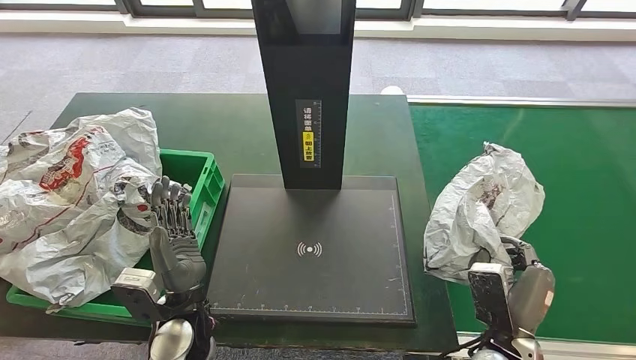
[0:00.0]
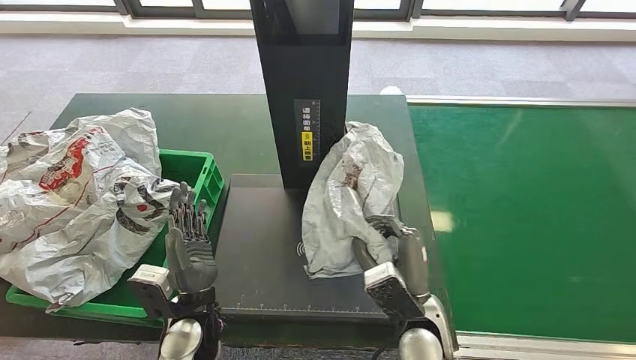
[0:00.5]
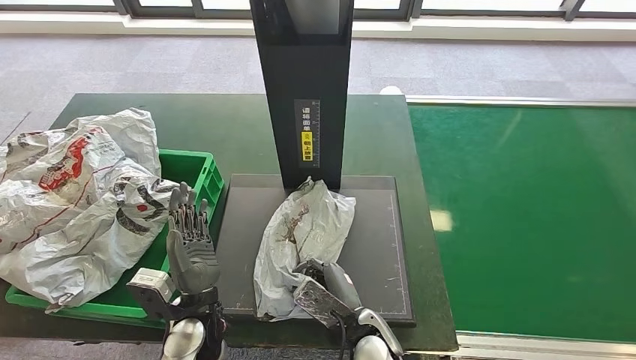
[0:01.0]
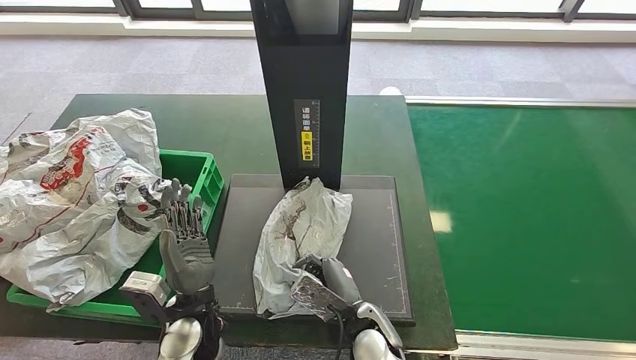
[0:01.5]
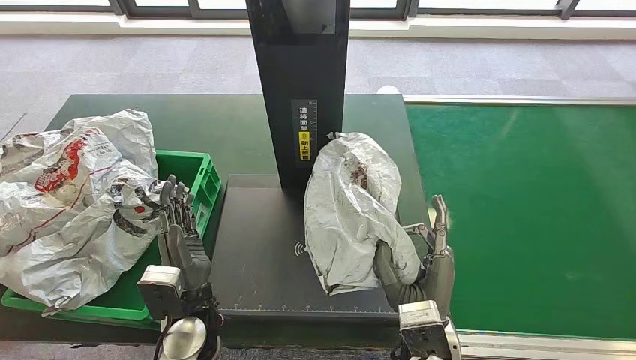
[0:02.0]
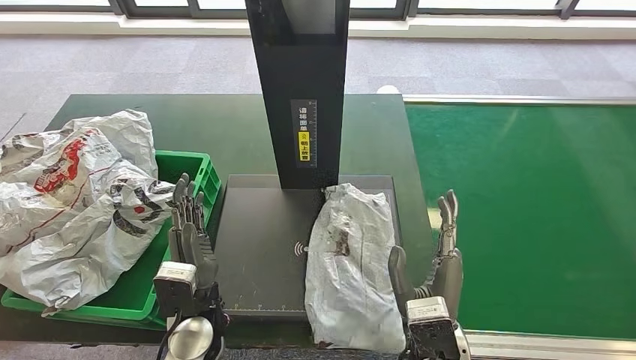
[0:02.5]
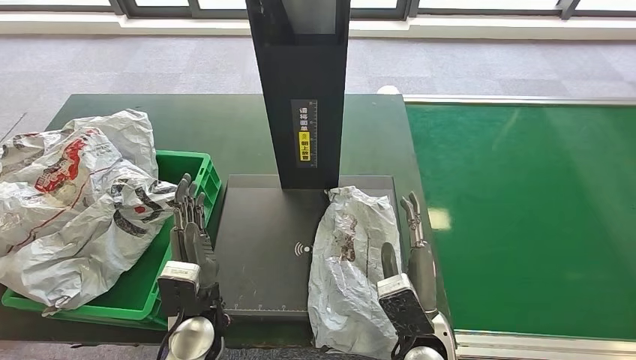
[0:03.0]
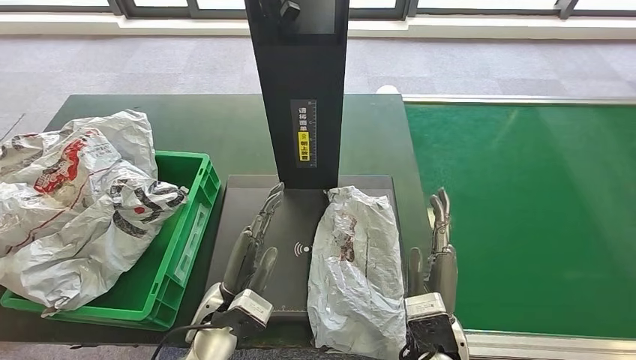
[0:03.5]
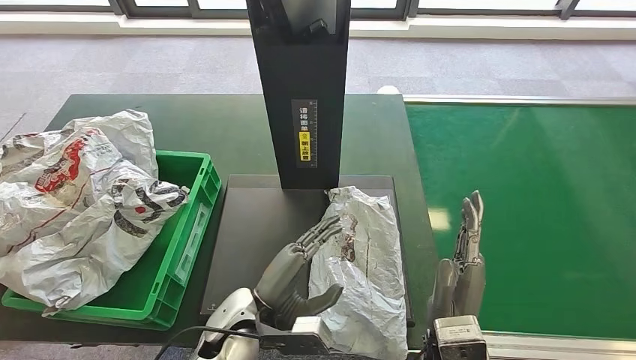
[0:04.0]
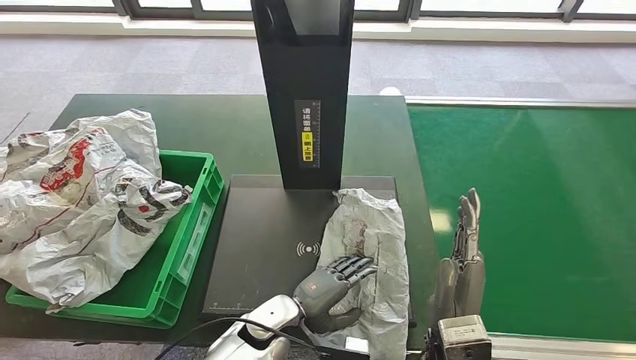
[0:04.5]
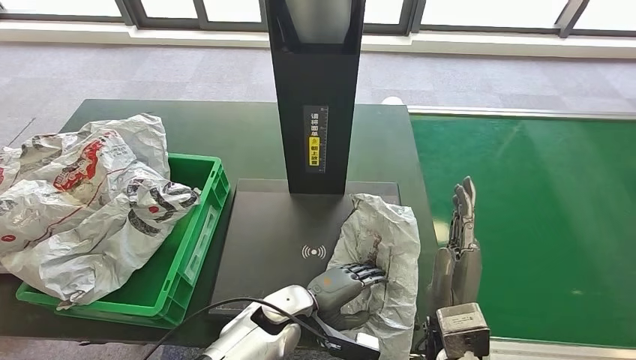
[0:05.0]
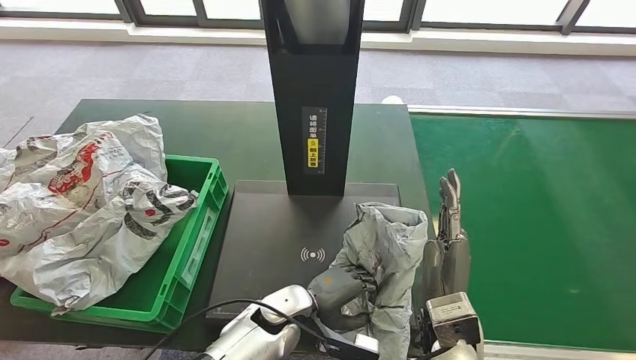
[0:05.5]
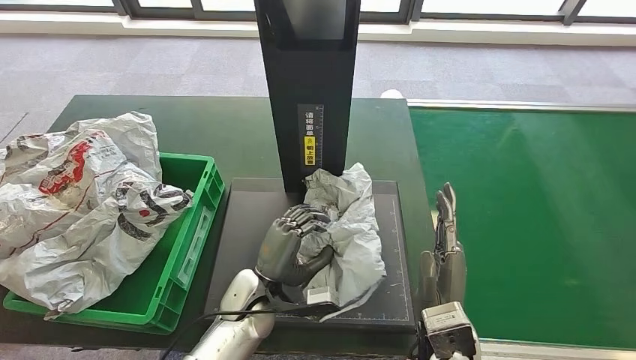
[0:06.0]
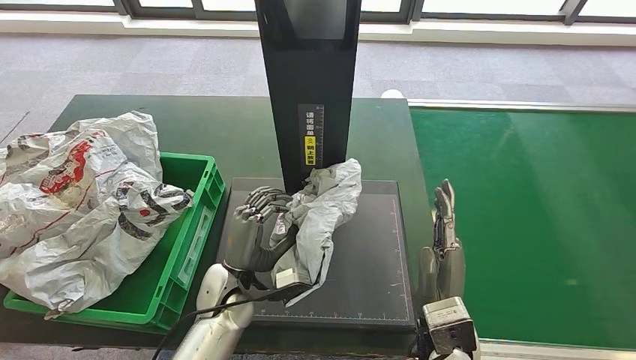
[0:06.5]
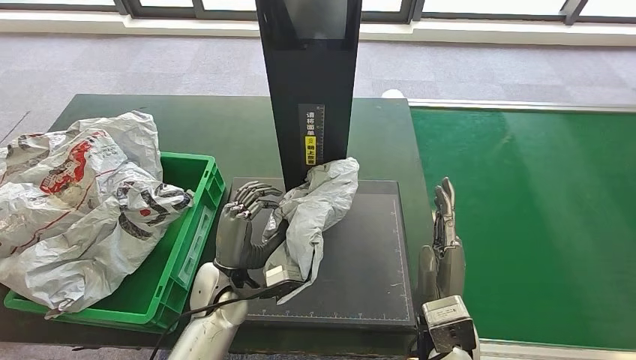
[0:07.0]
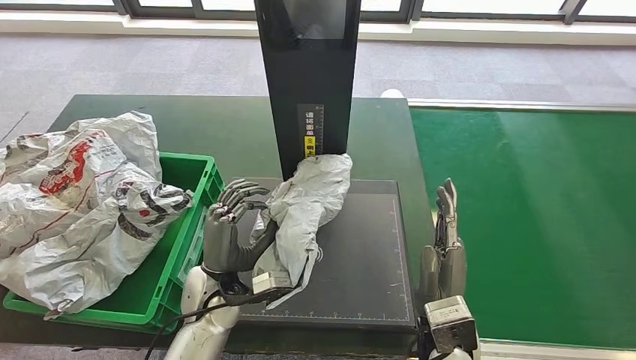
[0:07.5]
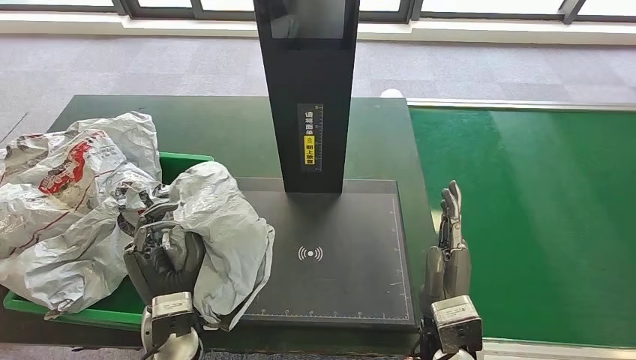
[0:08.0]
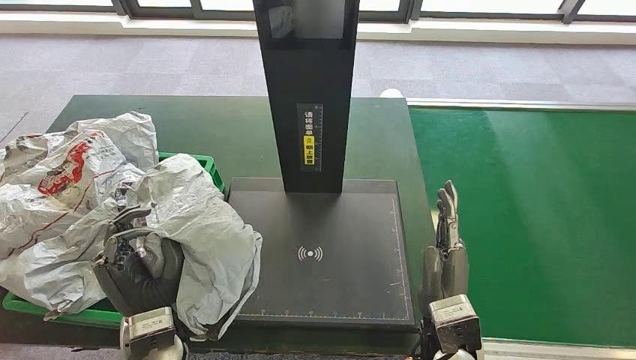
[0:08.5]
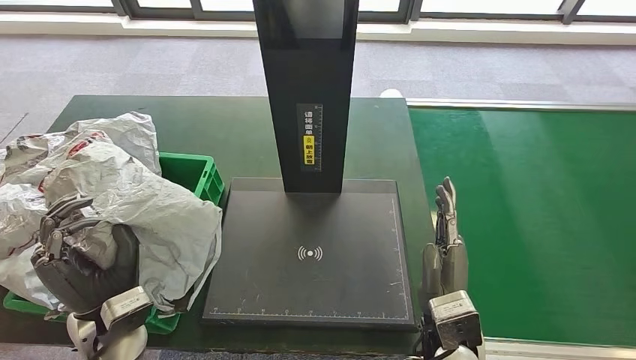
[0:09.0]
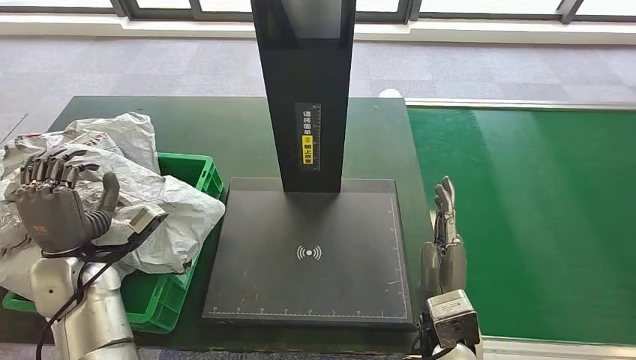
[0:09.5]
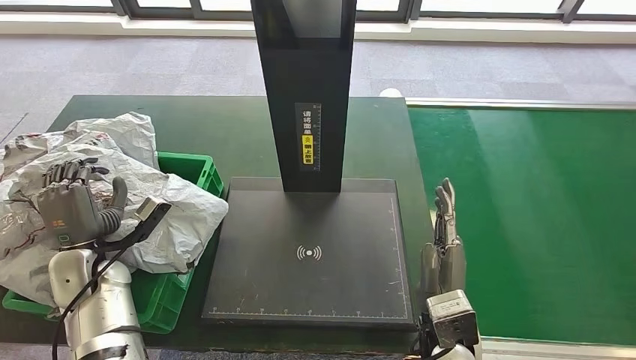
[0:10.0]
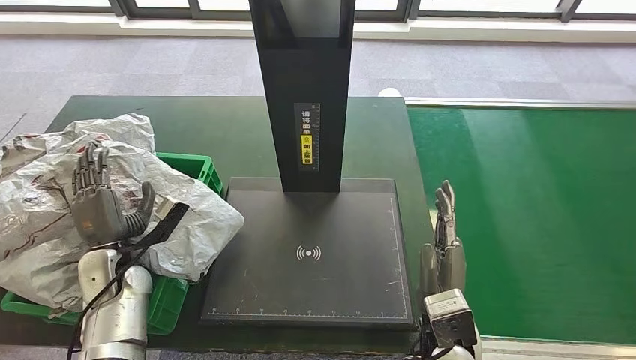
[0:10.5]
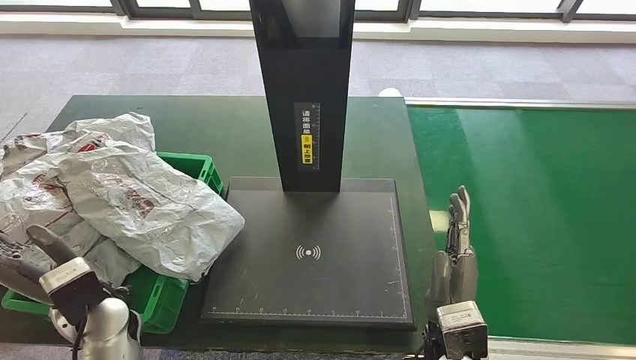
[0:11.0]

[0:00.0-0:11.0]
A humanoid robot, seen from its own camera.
Step, 0:00.0 to 0:02.5: Place the parcel onto the inbound machine.
Step, 0:03.0 to 0:06.0: Pick up the parcel from the inbound machine.
Step, 0:07.0 to 0:11.0: Place the parcel into the delivery box.
0:09.0 to 0:11.0: The left hand reaches approximately 10 cm to the left, then returns.
